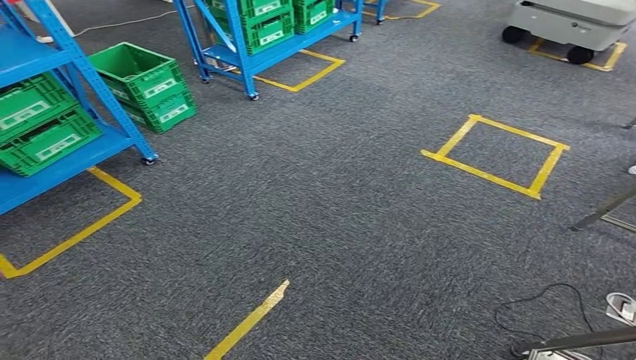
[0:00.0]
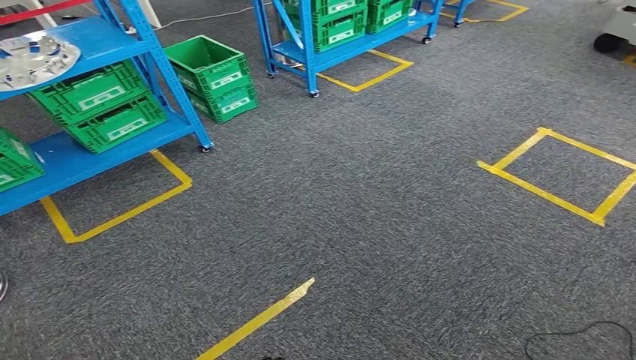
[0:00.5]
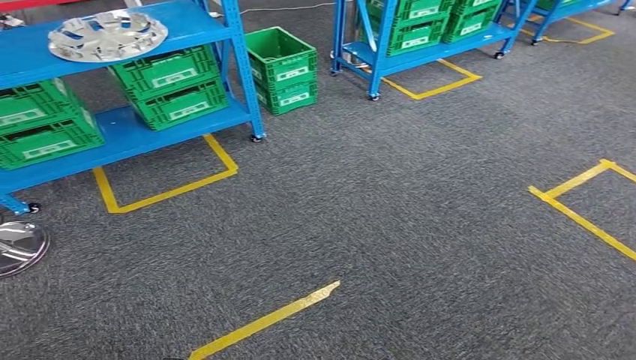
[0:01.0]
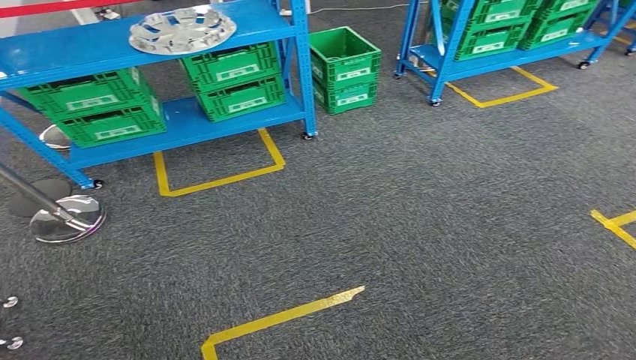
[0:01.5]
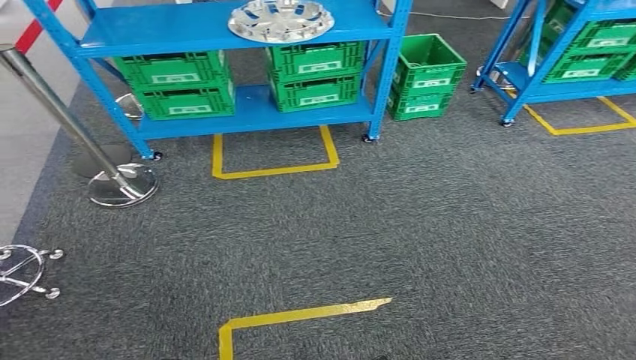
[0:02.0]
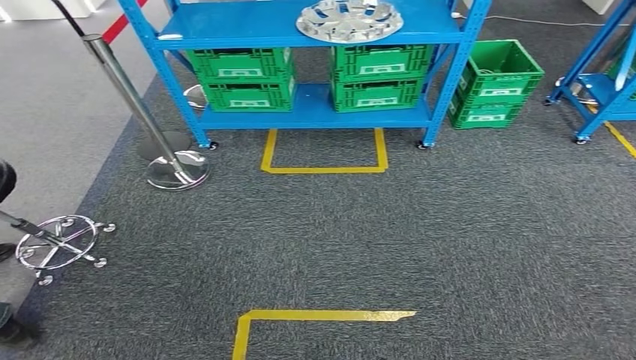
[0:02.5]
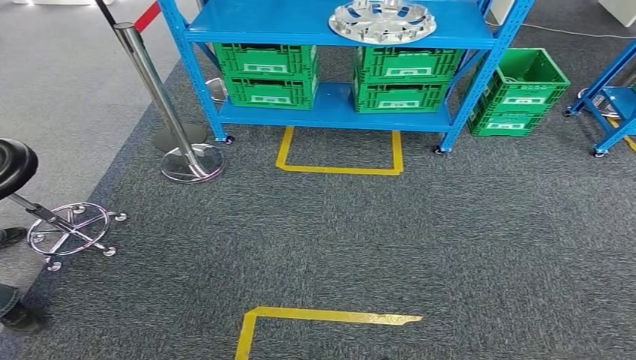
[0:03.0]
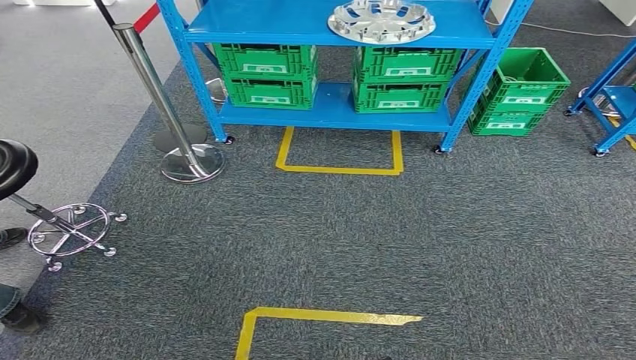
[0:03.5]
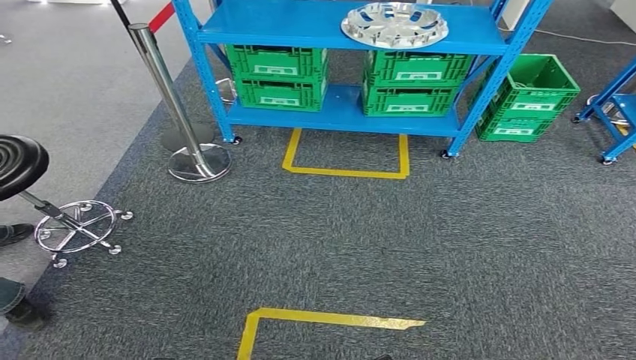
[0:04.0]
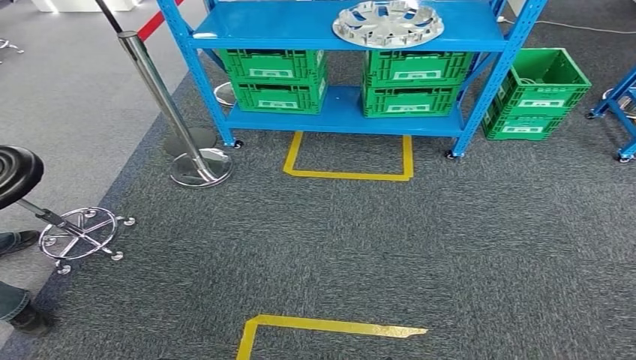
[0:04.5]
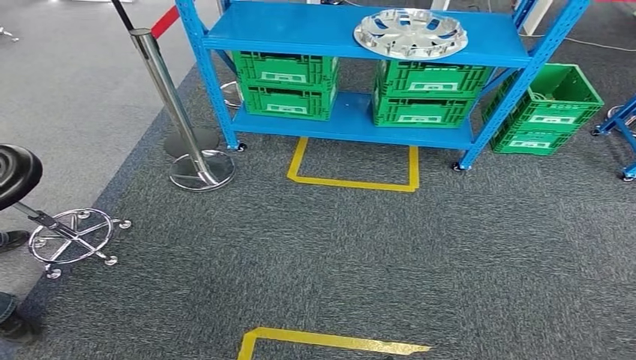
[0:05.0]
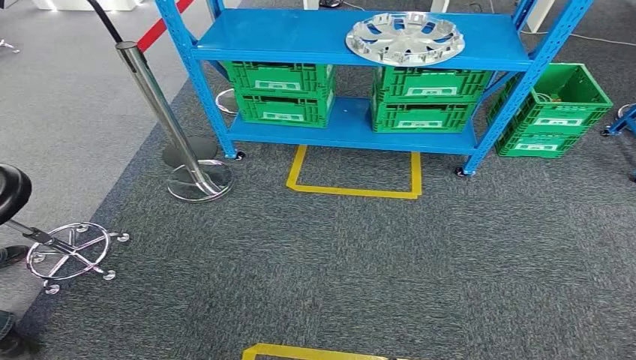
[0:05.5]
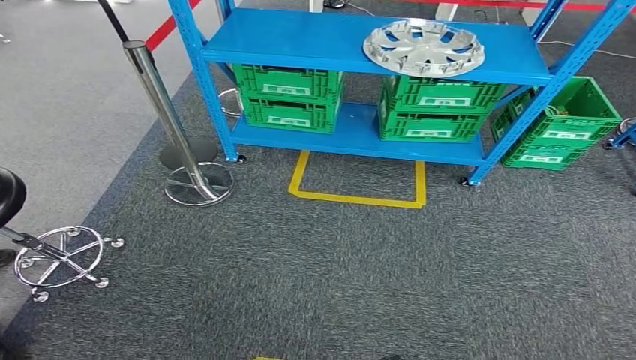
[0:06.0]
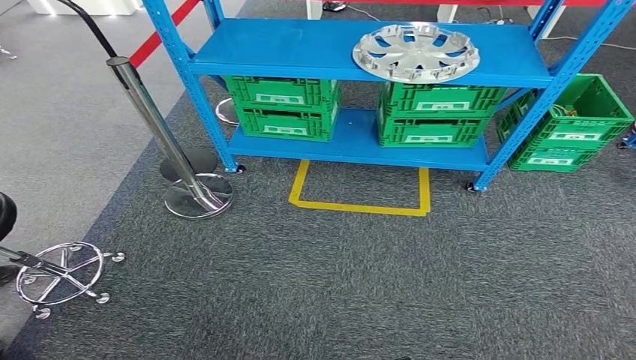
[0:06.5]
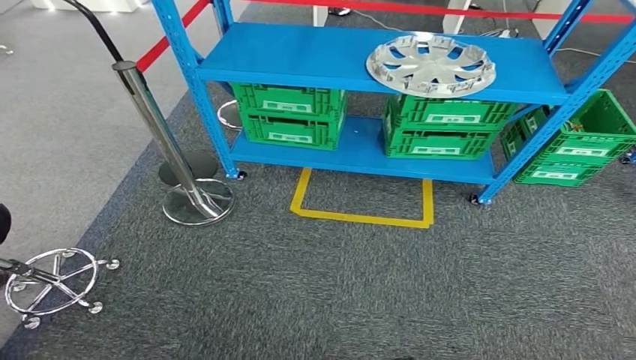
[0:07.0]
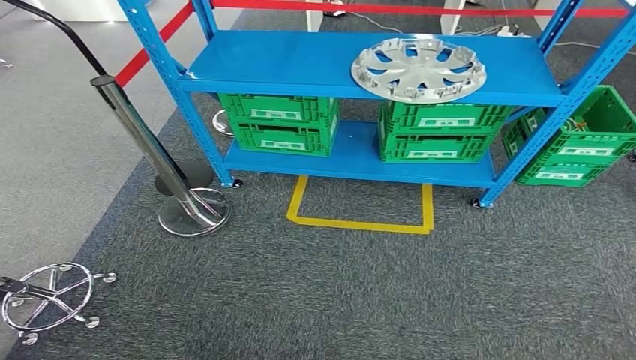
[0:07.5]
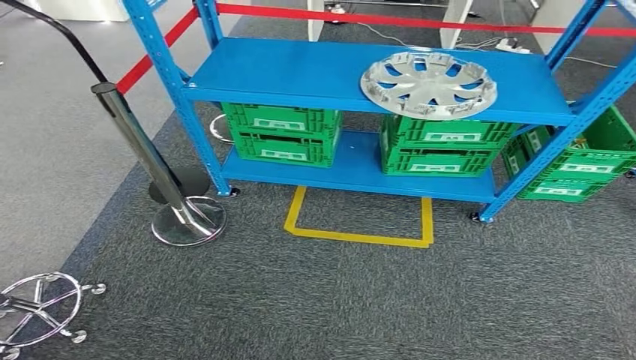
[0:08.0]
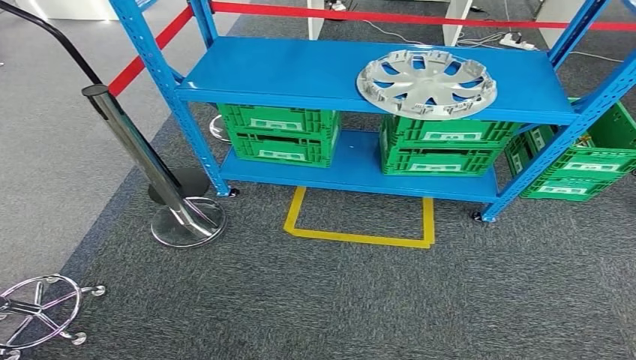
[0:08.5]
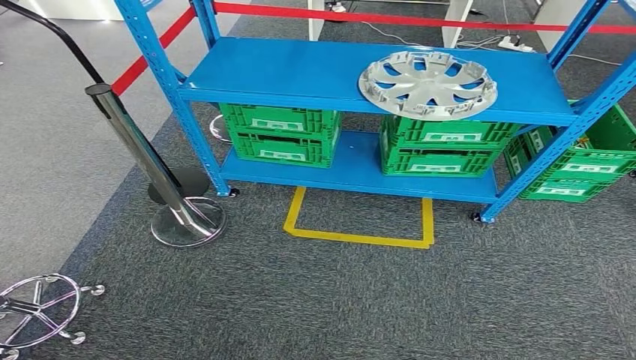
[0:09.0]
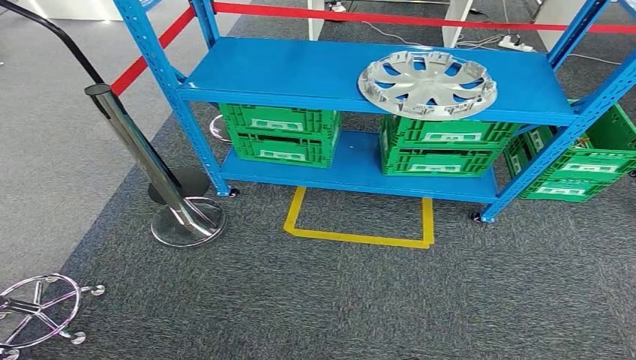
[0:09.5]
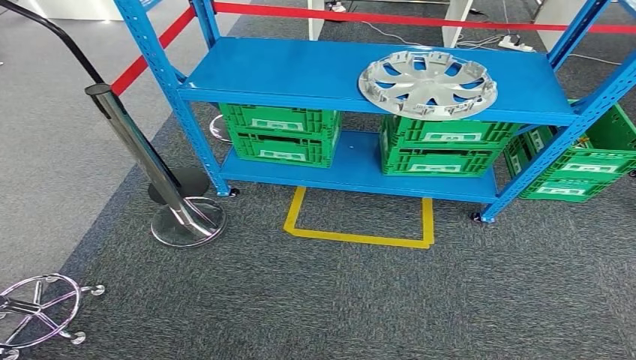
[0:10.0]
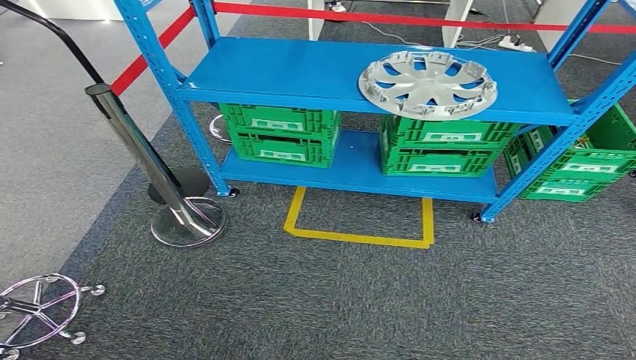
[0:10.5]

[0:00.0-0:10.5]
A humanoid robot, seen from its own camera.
Step, 0:00.0 to 0:10.5: Move to the initial position at the workbench.
0:08.5 to 0:10.5: Both hands stay about where they are.
